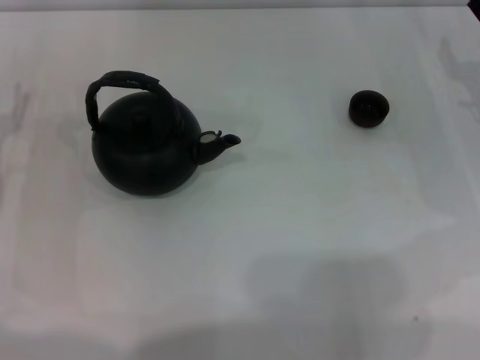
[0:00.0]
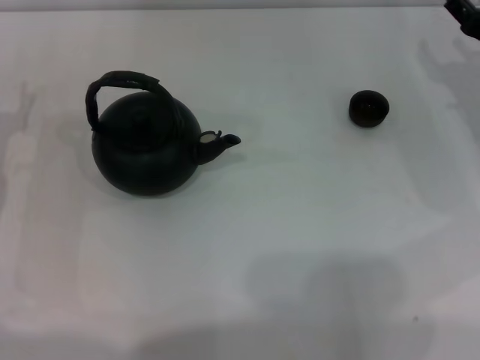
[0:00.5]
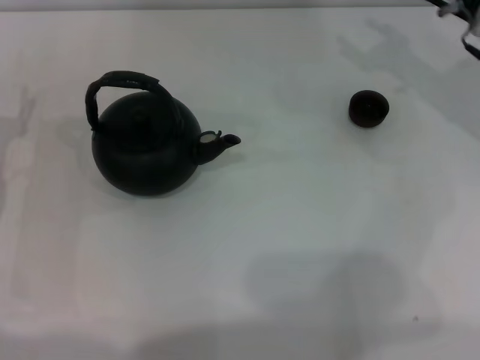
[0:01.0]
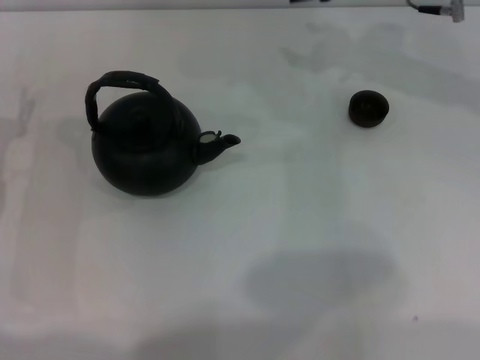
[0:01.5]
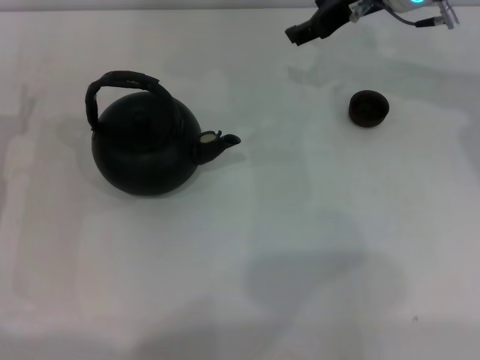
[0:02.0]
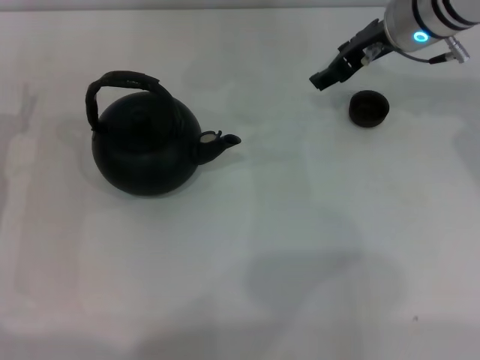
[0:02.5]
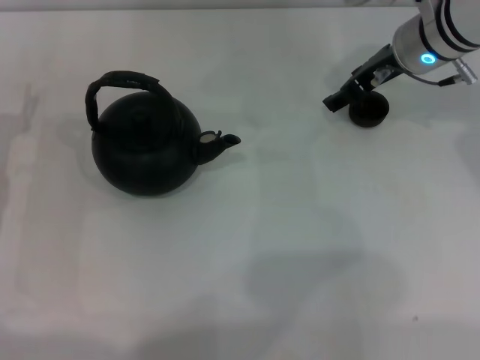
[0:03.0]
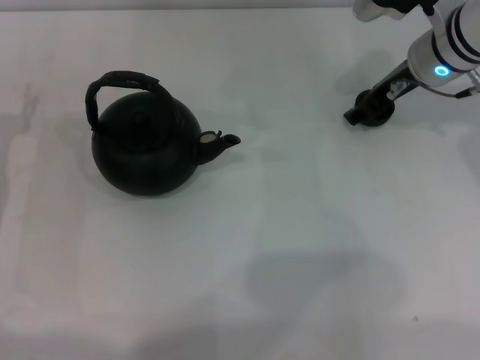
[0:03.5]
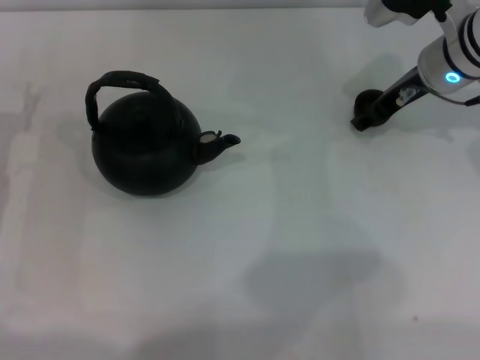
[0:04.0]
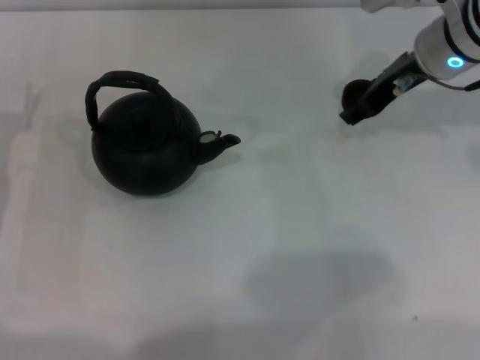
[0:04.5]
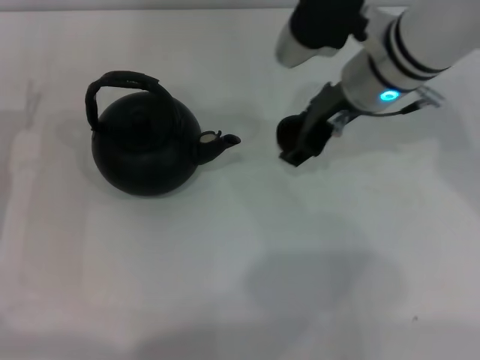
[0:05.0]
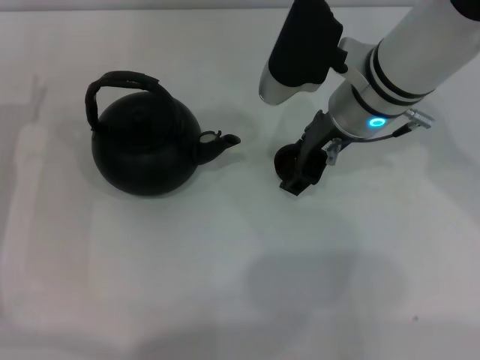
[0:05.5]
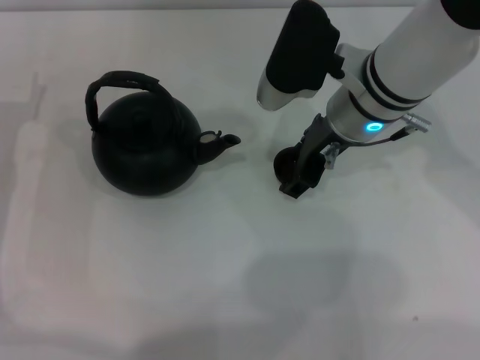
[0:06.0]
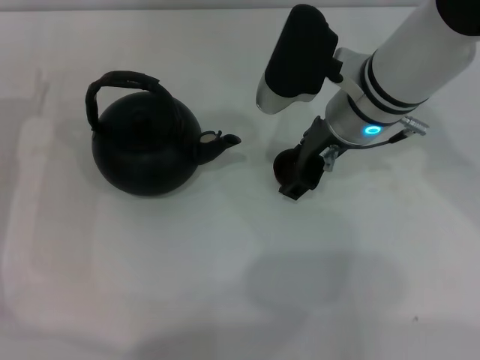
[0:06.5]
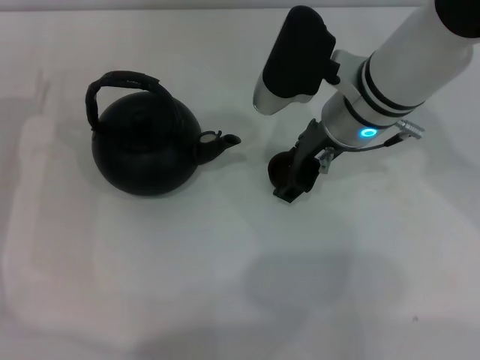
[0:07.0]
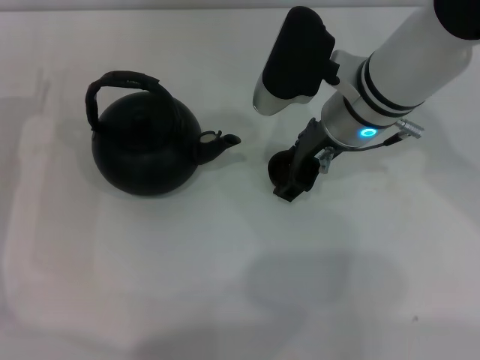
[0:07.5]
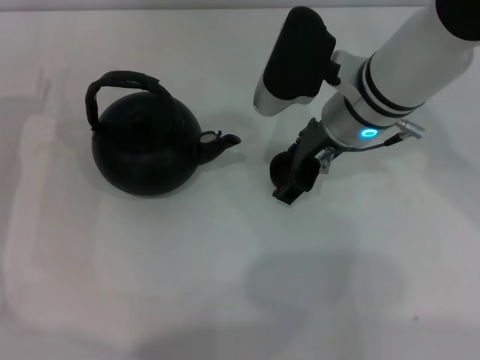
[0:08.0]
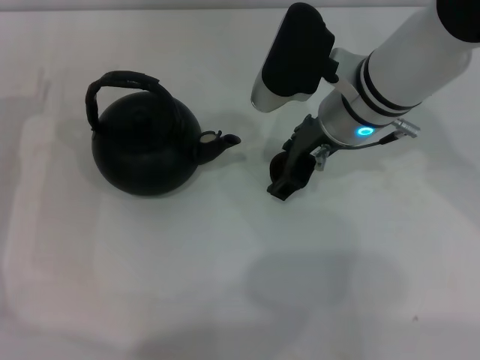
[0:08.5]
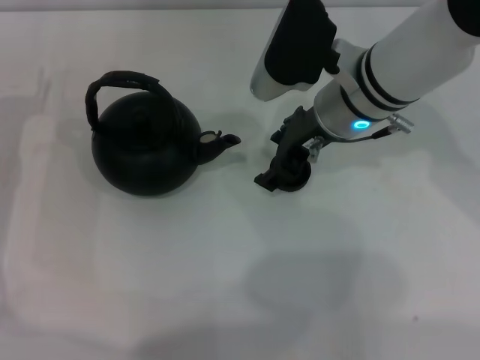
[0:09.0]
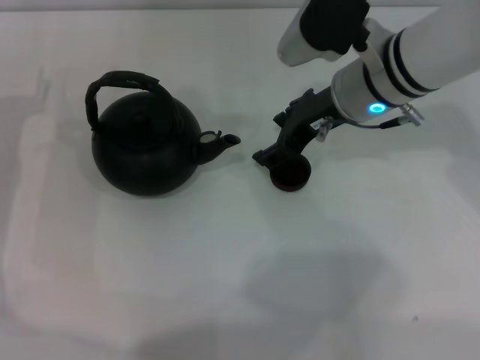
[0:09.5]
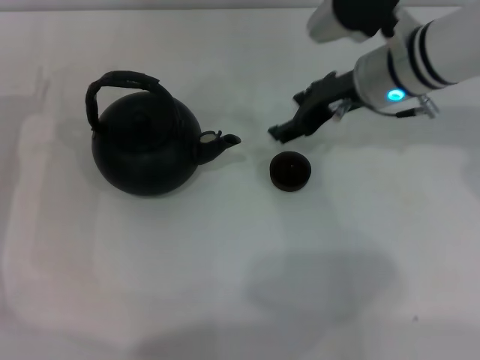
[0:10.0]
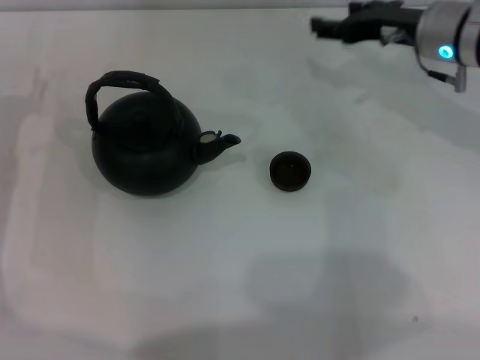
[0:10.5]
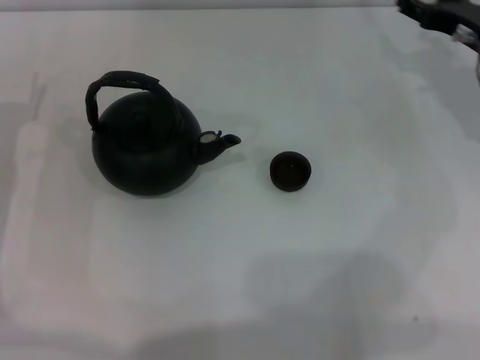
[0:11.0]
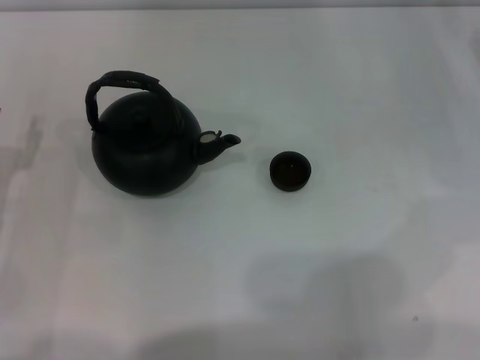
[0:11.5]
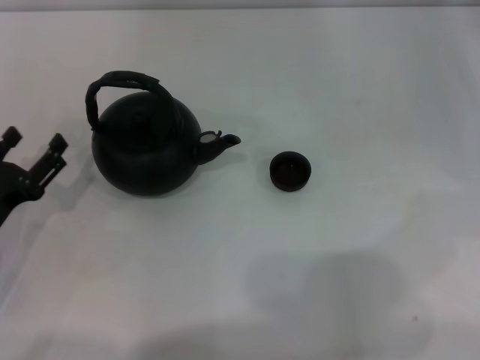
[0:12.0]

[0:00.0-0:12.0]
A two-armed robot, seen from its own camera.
Task of the whole recording: Grasp the handle of the teapot with one hand and pour tea into the teacup.
Step, 0:00.0 to 0:04.5: Pick up the teacup with the right gripper.
Step, 0:05.0 to 0:09.5: Place the teacup in the center of view with the right gripper.
0:00.0 to 0:02.0: The right gripper goes about 20 cm to the left, upward and forward.
0:02.0 to 0:04.0: The right gripper is displaced downward by approximately 5 cm.
0:04.0 to 0:06.0: The right gripper goes roughly 10 cm to the left and backward.
0:06.0 to 0:08.0: The right gripper opens up.
0:08.0 to 0:10.0: The right gripper shifts by roughly 5 cm.
0:10.0 to 0:12.0: The right gripper shifts roughly 20 cm to the right; the left gripper moves backward, approximately 10 cm.

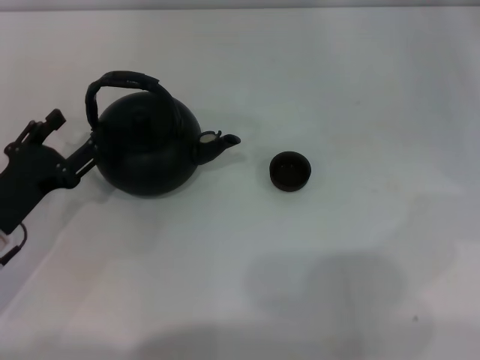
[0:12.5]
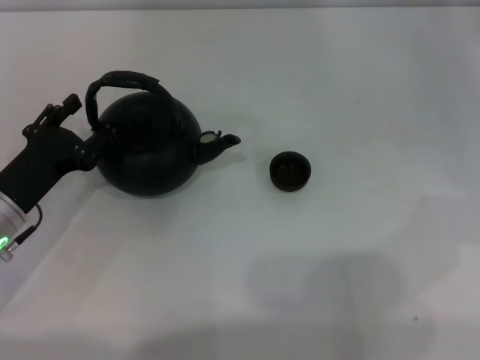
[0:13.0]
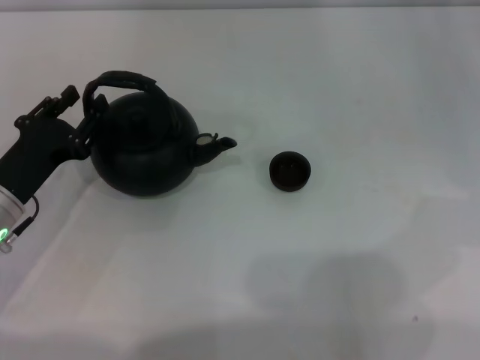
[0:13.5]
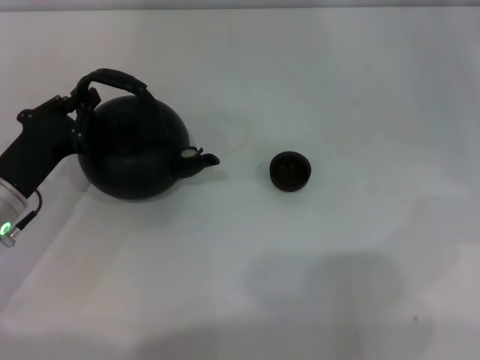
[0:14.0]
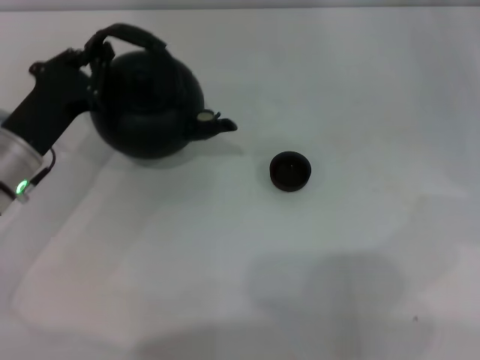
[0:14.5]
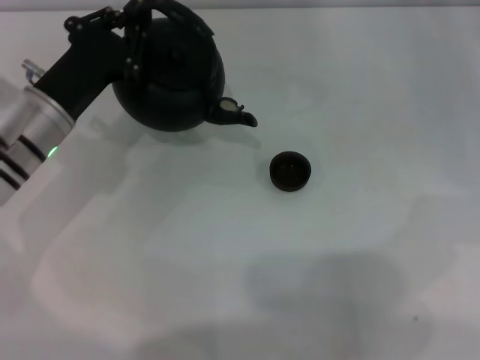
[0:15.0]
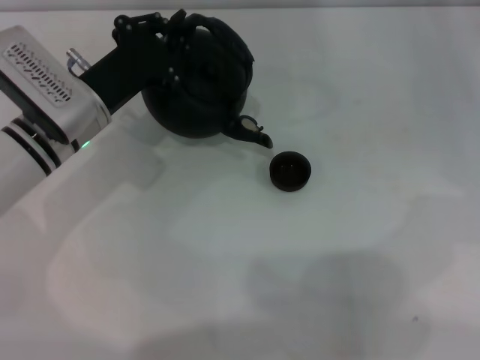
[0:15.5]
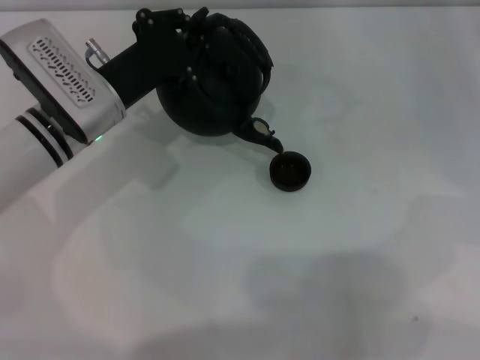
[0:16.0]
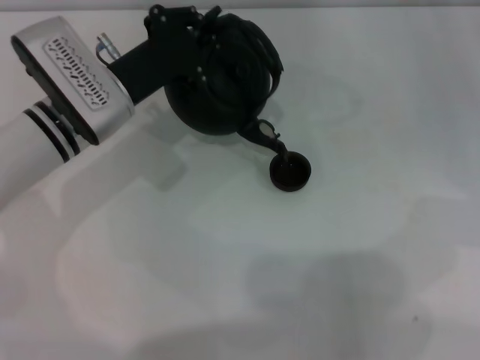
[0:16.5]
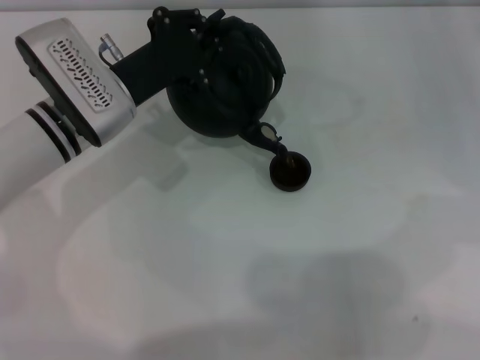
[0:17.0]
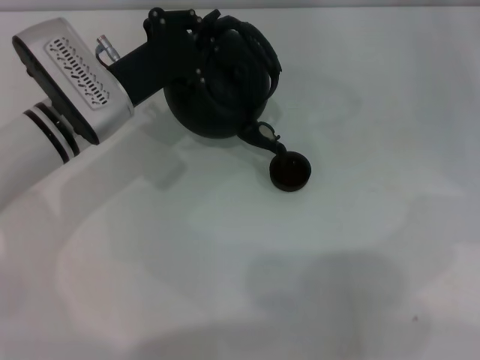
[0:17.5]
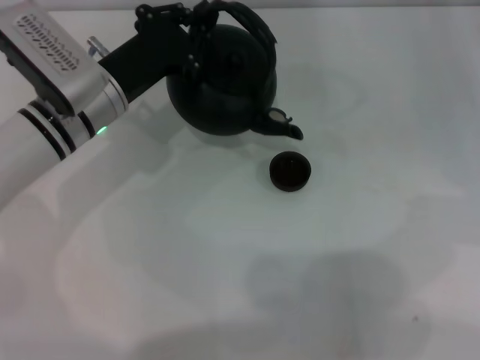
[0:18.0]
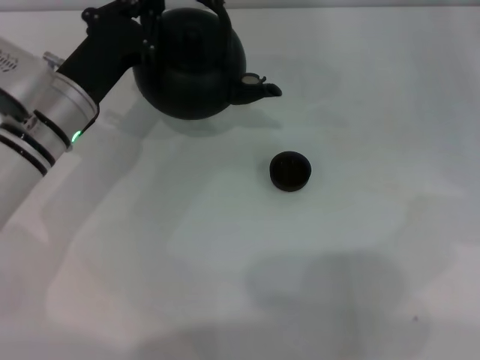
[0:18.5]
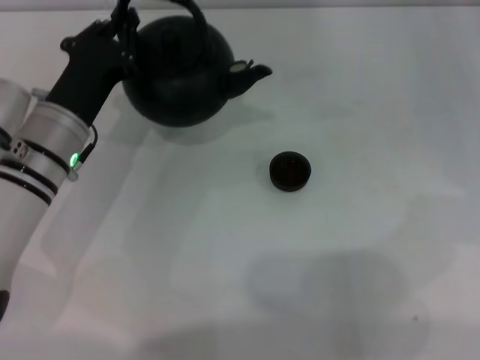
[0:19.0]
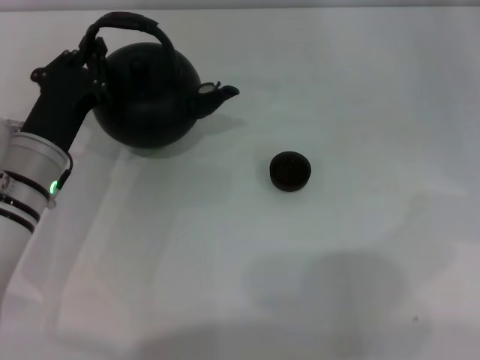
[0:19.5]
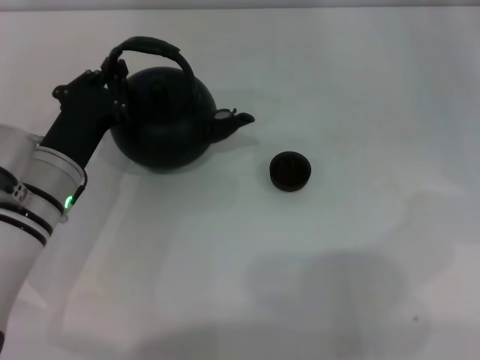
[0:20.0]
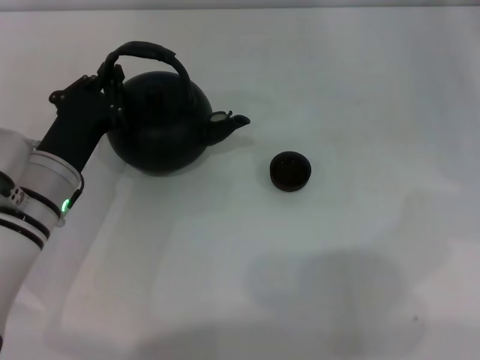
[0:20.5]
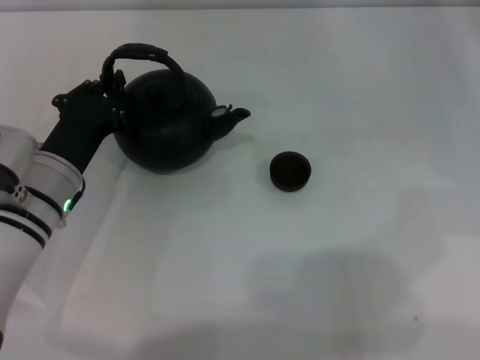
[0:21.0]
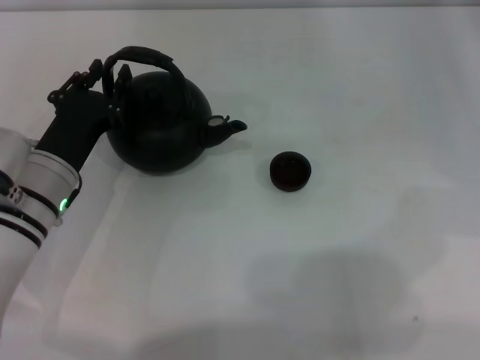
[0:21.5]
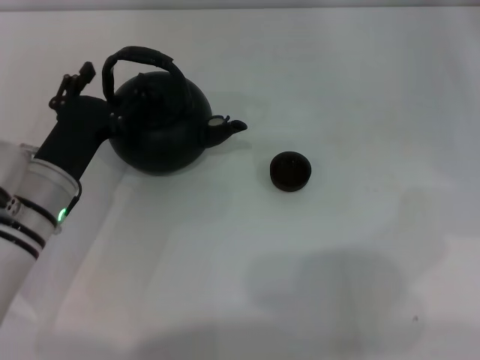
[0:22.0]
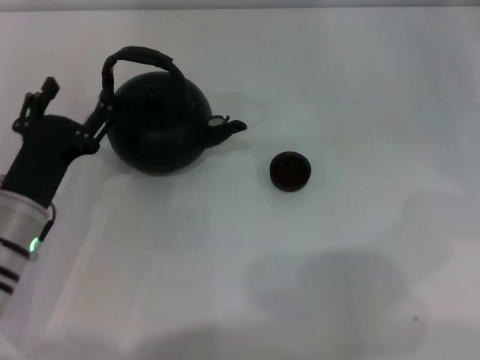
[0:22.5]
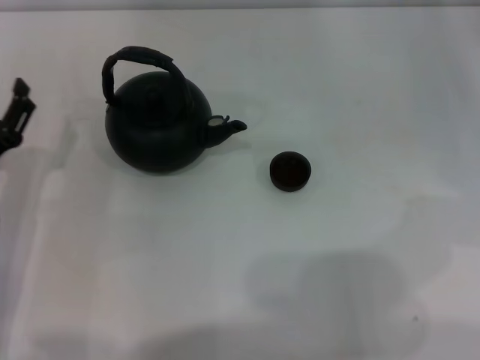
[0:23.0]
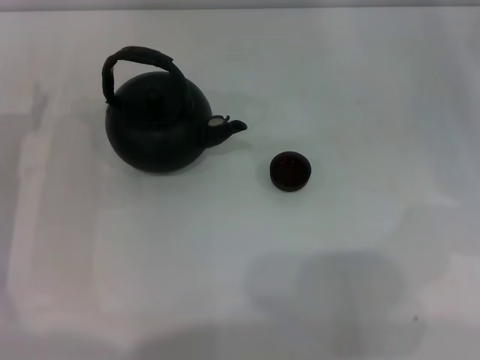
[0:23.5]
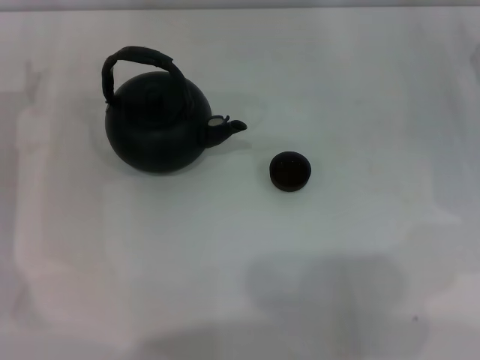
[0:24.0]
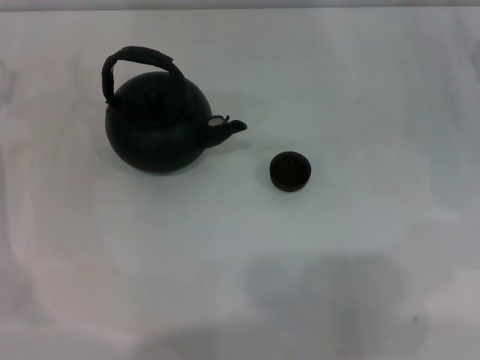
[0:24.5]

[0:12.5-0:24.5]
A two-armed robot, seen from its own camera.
Task of the whole recording: Grasp the handle of the teapot with one hand and pour tea into the teacup.
Step, 0:12.5 to 0:15.0: Pick up the teapot with the left gripper.
Step, 0:15.5 to 0:18.0: Pour tea into the teacup with the left gripper.
Step, 0:18.5 to 0:22.5: Put down the teapot with the left gripper.
0:12.5 to 0:14.5: The left gripper travels forward by some 5 cm, and closes its fingers.
0:14.5 to 0:16.5: The left gripper moves to the right and forward, approximately 10 cm.
0:18.5 to 0:20.5: The left gripper travels backward by some 5 cm.
0:20.5 to 0:22.5: The left gripper opens.
0:22.5 to 0:24.5: The left gripper is displaced to the left and forward by about 15 cm.
